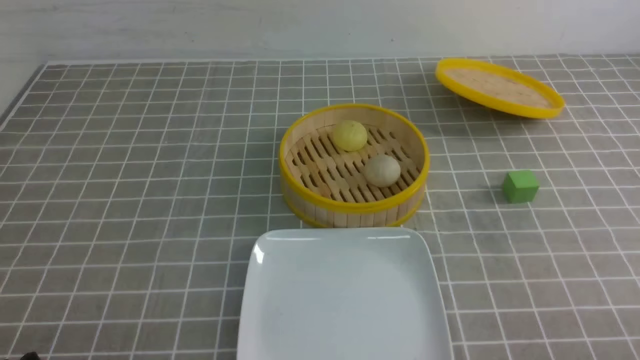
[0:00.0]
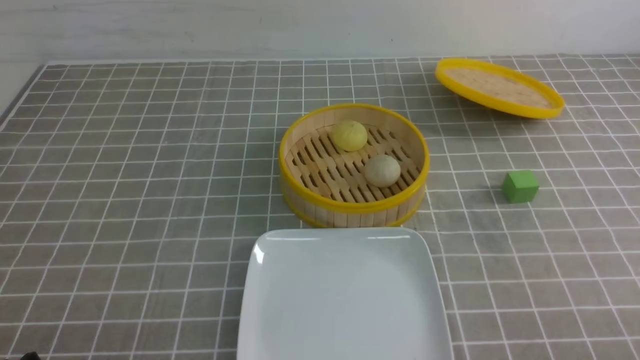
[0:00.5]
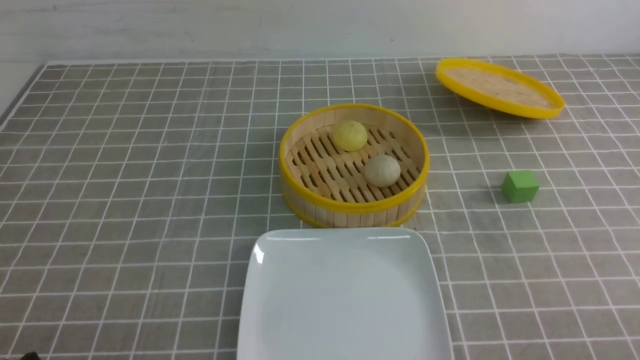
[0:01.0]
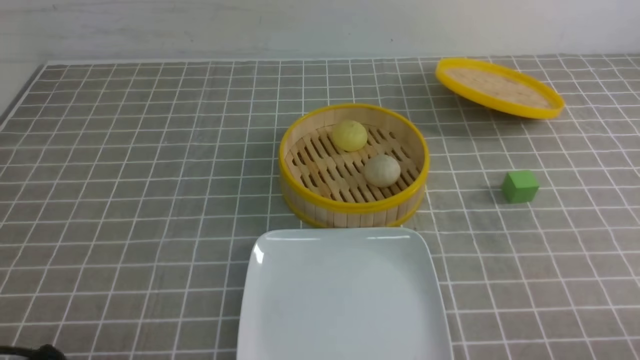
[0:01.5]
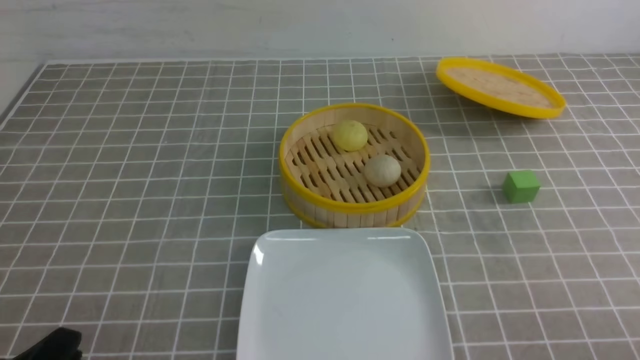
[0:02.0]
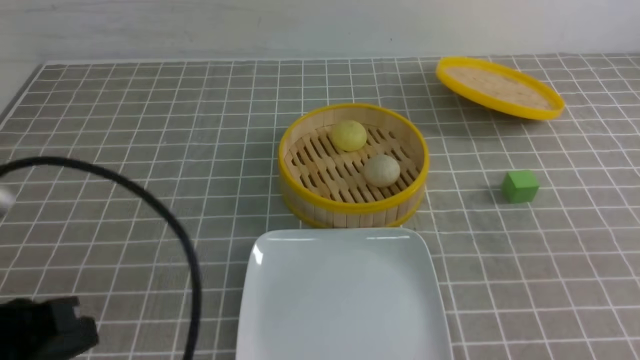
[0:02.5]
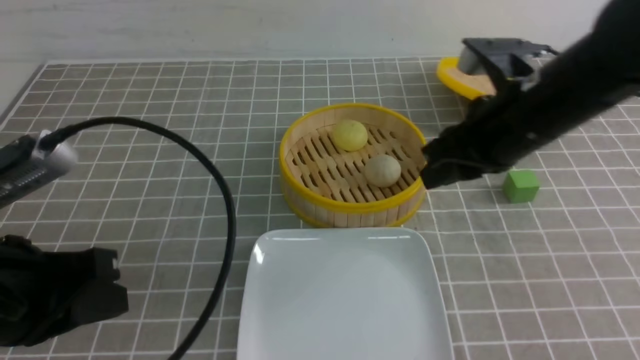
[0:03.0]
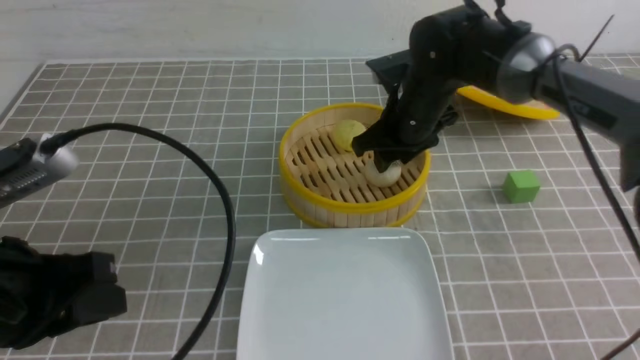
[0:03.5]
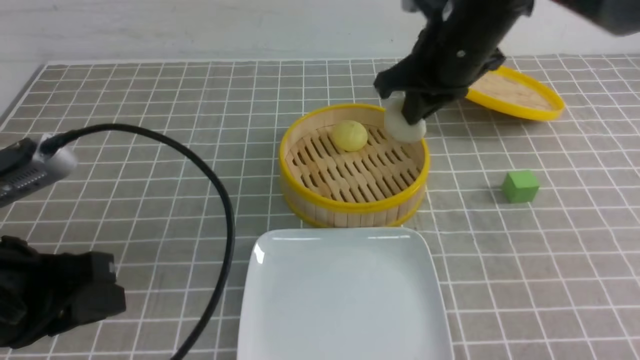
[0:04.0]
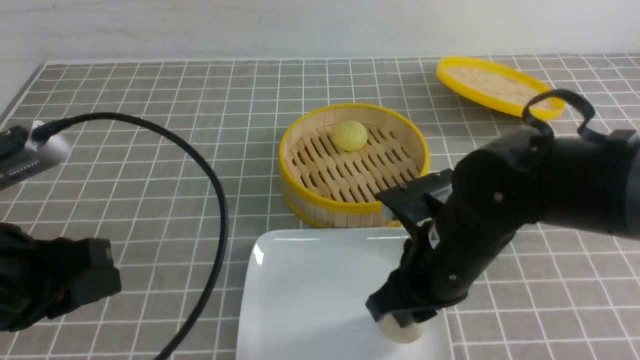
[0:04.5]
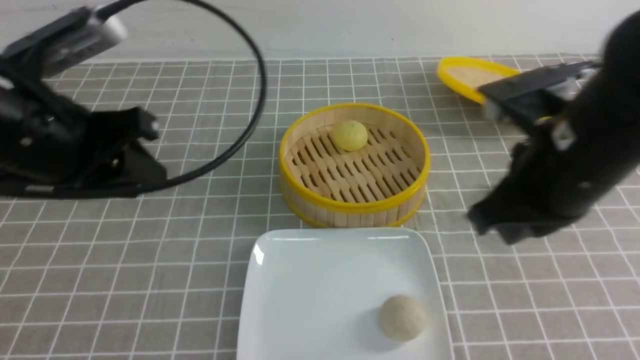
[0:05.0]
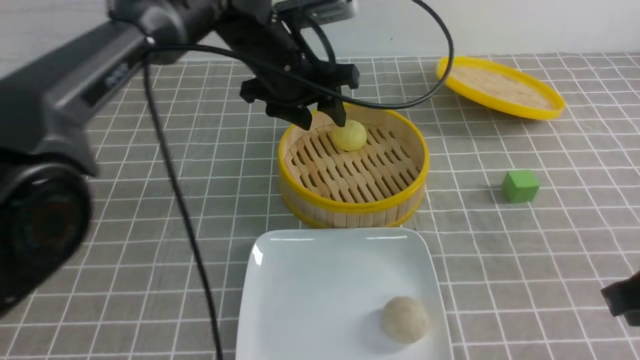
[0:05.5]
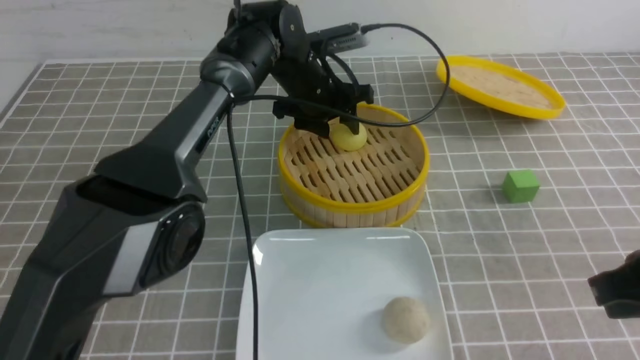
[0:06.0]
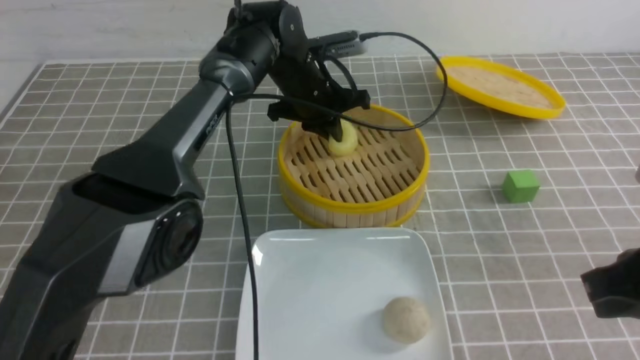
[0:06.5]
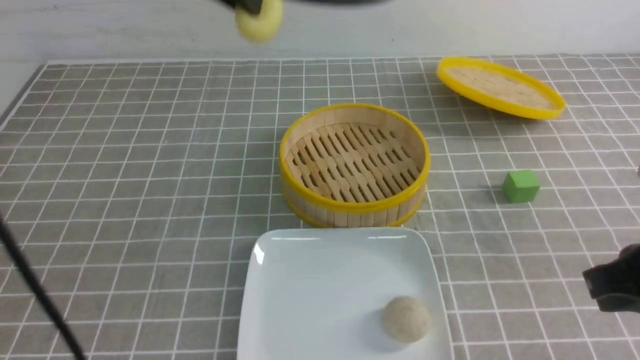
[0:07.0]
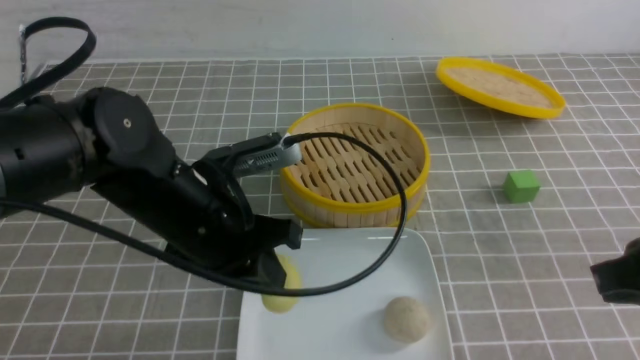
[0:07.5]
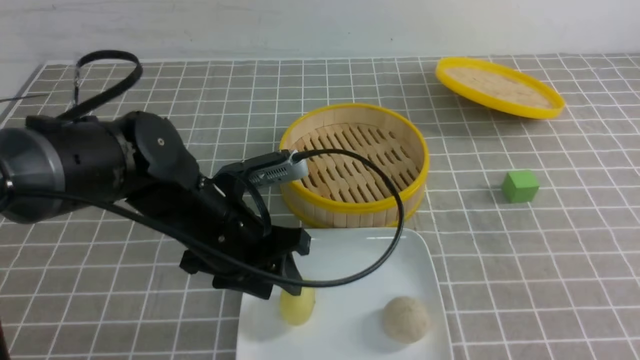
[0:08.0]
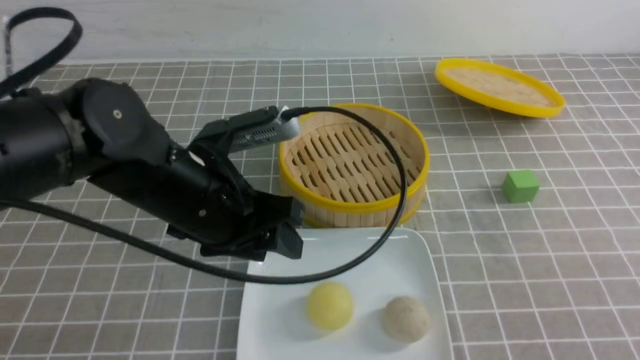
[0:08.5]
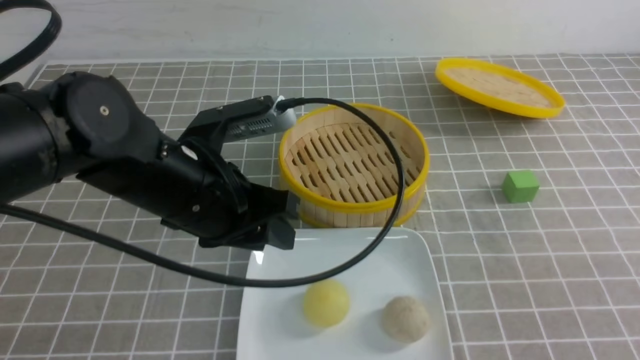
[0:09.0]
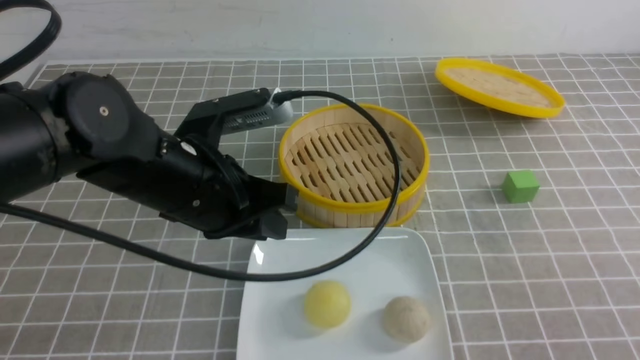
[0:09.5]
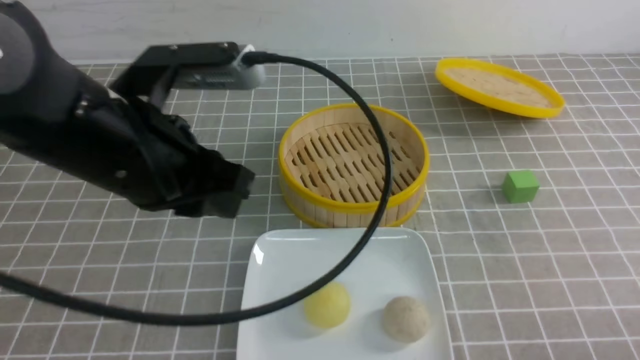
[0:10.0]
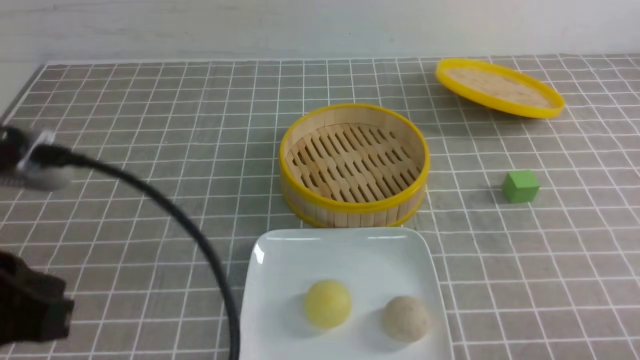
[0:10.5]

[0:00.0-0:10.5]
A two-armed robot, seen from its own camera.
Step, 0:00.0 to 0:03.5: use the right arm to grab the steamed stuffed bun that is closest to it.
Step, 0:04.0 to 0:04.5: use the right arm to put the steamed stuffed bun into the plate.
Step, 0:05.0 to 0:06.0: use the left arm to grab the steamed stuffed bun that is closest to it.
Step, 0:07.0 to 0:08.0: use the left arm to put the steamed stuffed bun into the plate.
0:02.0 to 0:04.0: The right gripper shifts approximately 35 cm forward and to the left, and closes up. Meanwhile the left gripper moves forward and upward, some 15 cm, and closes, then opens again.
0:04.0 to 0:06.5: The right gripper goes some 25 cm backward and to the right, and opens, then closes once more. Meanwhile the left gripper is displaced forward and to the right by approximately 40 cm, and opens, then closes again.
0:06.5 to 0:08.5: The right gripper goes approximately 15 cm backward and to the right. Meanwhile the left gripper moves backward, approximately 25 cm, and opens.
0:08.5 to 0:10.5: The right gripper goes some 10 cm downward; the left gripper heads backward, to the left and upward, covering some 20 cm, and closes up.

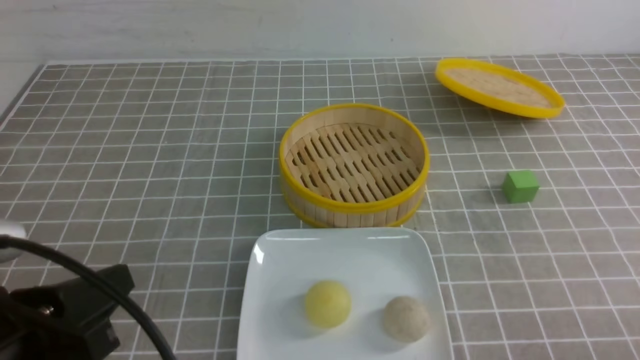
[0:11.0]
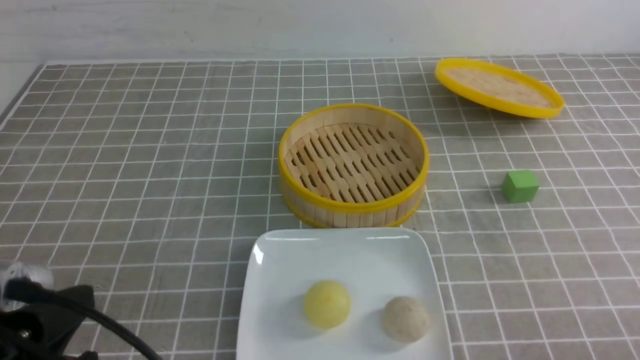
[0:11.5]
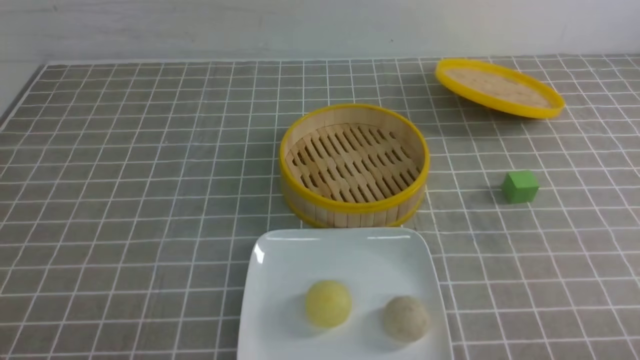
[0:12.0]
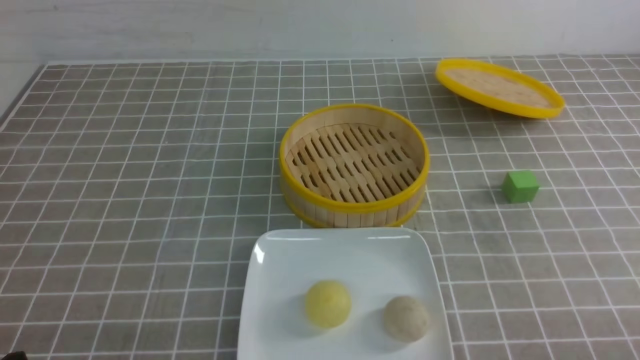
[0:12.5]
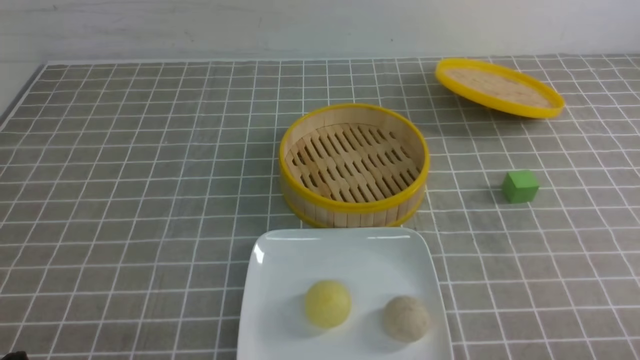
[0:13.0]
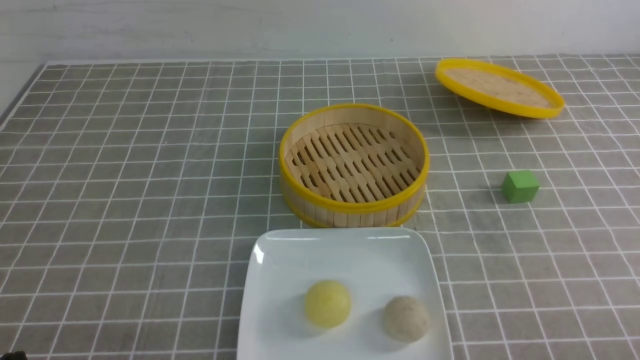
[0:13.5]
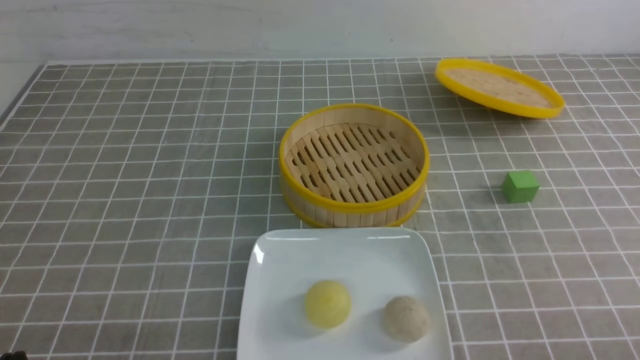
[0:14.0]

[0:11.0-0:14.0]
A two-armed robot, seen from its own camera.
0:11.0 to 0:12.5: The left gripper shifts about 10 cm downward.
0:12.5 to 0:14.0: The two grippers keep their place.

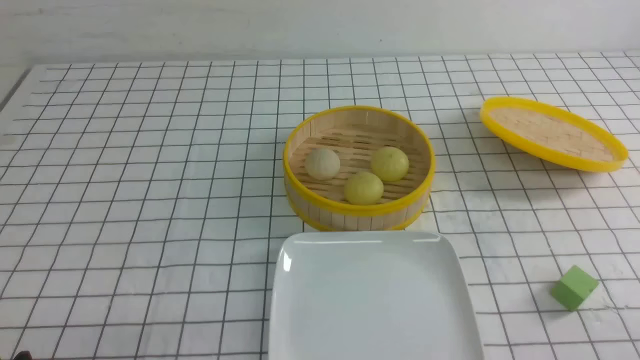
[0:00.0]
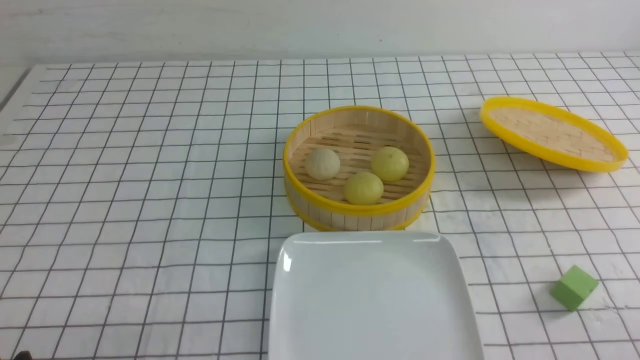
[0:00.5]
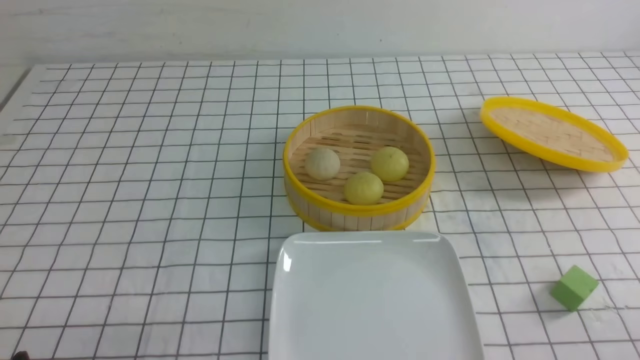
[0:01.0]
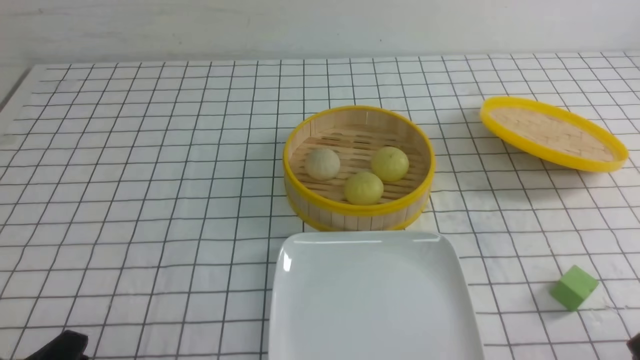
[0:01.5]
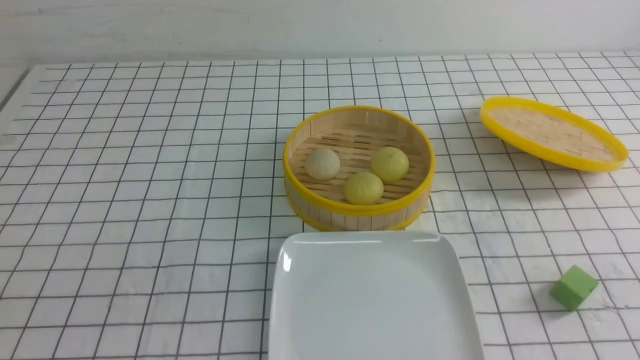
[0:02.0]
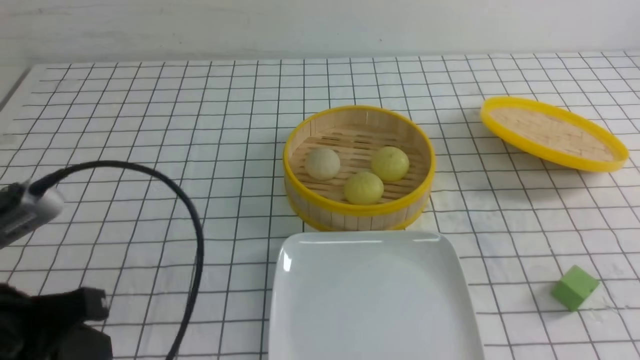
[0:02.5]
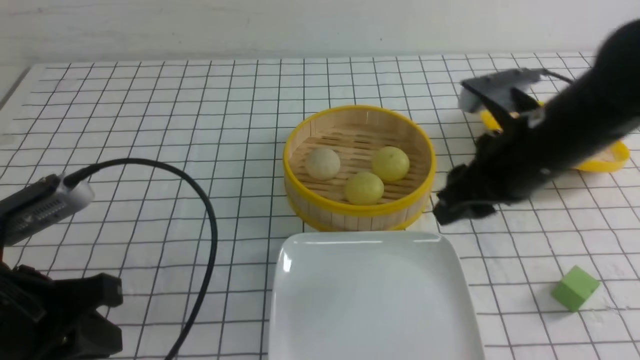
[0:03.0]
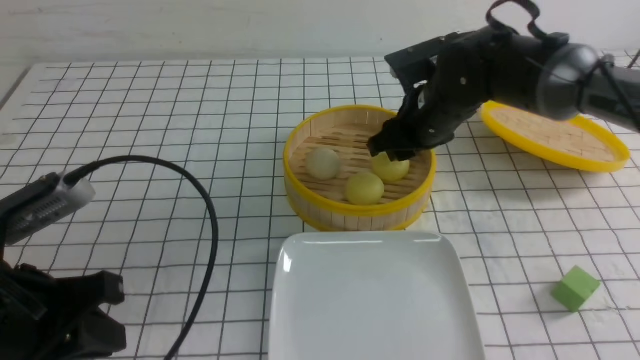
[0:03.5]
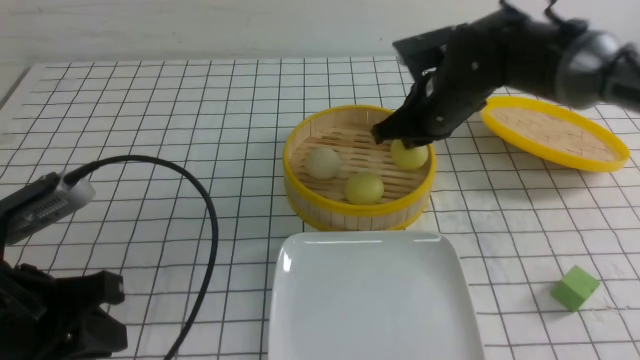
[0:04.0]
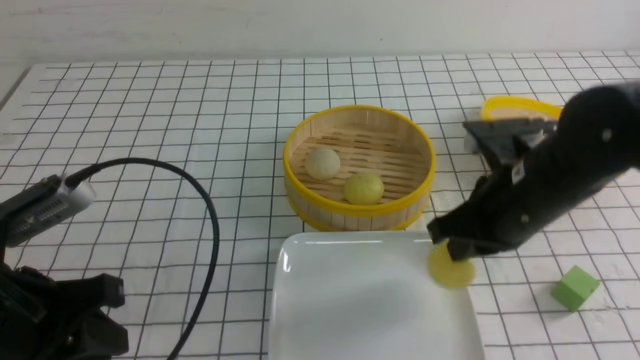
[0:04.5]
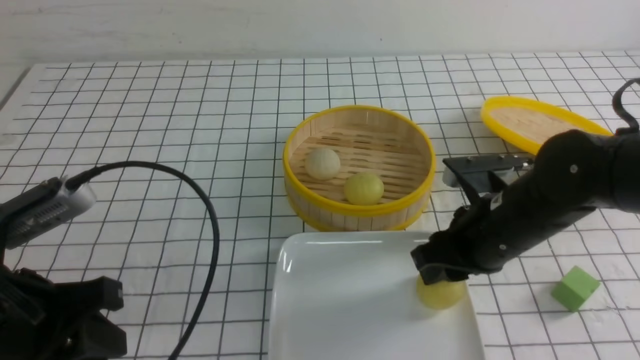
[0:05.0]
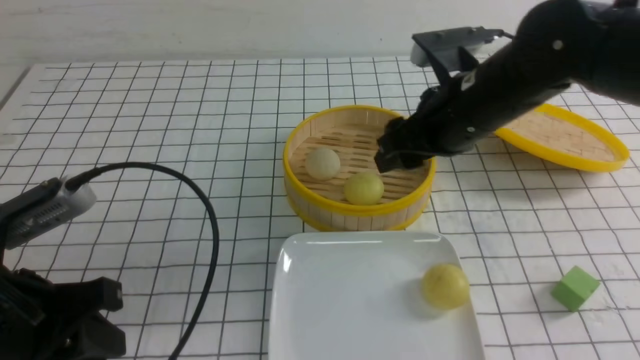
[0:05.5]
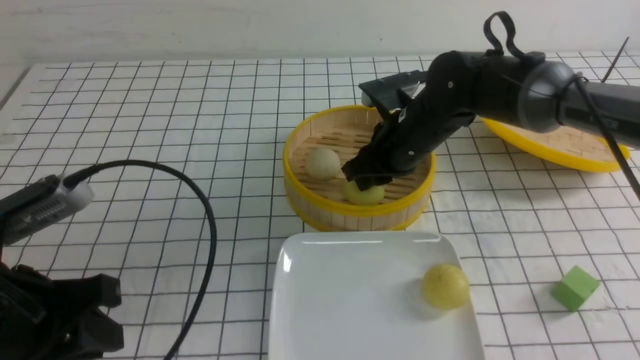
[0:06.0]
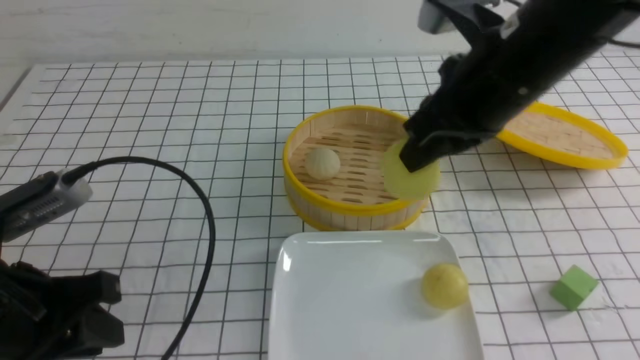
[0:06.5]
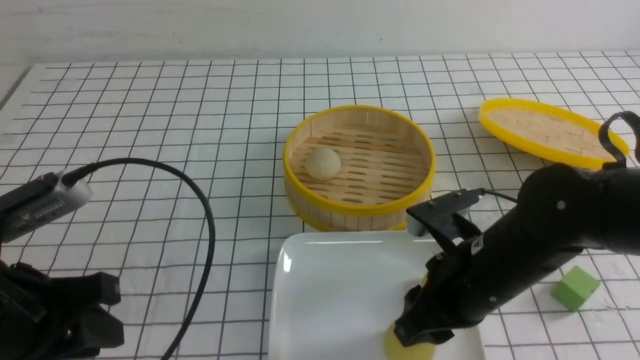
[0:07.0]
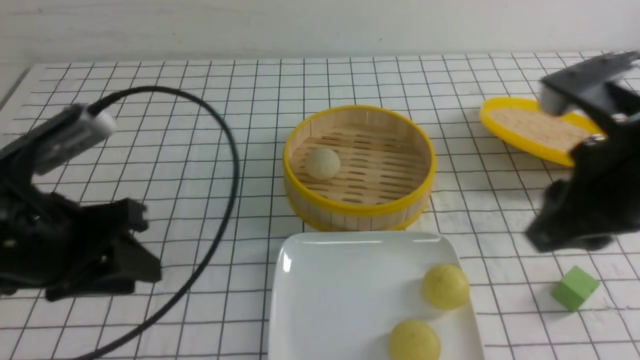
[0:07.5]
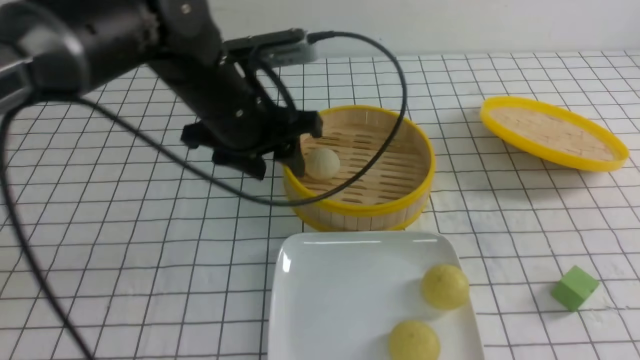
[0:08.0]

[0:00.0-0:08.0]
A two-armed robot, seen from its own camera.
Step, 0:00.0 to 0:03.5: use the right arm to grab the steamed stuffed bun that is closest to it.
Step, 0:04.0 to 0:05.0: use the right arm to put the steamed stuffed bun into the plate.
Step, 0:05.5 to 0:06.0: use the right arm to grab the steamed stuffed bun that is closest to it.
Step, 0:06.5 to 0:07.0: use the right arm to put the steamed stuffed bun into the plate.
0:02.0 to 0:04.0: The right gripper moves forward and to the left, roughly 40 cm, and opens, then closes again. Meanwhile the left gripper goes roughly 10 cm forward.
0:04.0 to 0:06.0: The right gripper is displaced downward by some 5 cm, goes backward and returns, about 10 cm each way, and opens up.
0:06.0 to 0:08.0: The left gripper shifts some 25 cm forward and to the right, and opens; the right gripper is displaced backward, to the right and upward by some 35 cm, and closes up.
